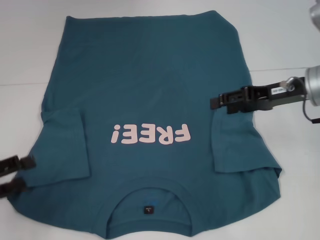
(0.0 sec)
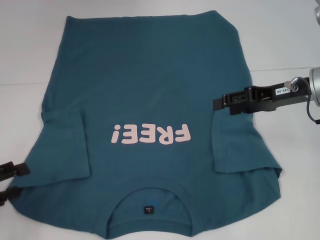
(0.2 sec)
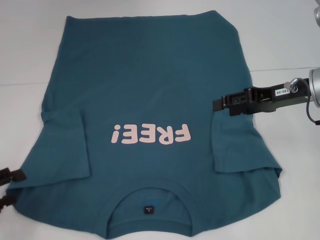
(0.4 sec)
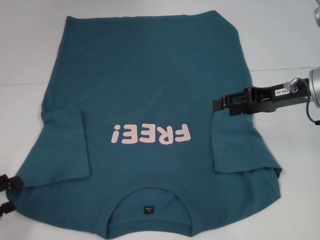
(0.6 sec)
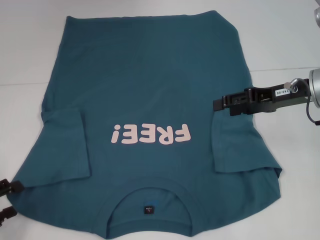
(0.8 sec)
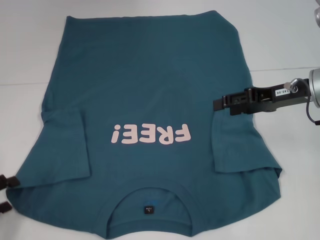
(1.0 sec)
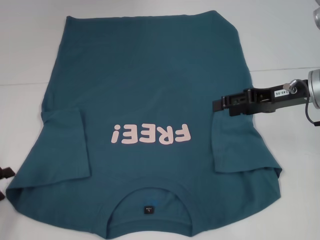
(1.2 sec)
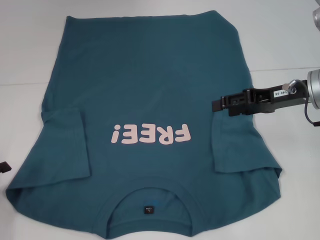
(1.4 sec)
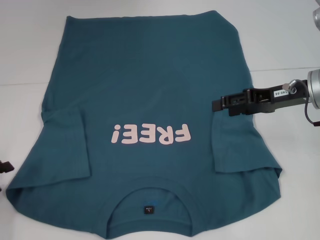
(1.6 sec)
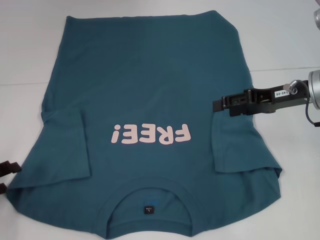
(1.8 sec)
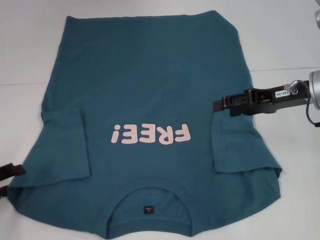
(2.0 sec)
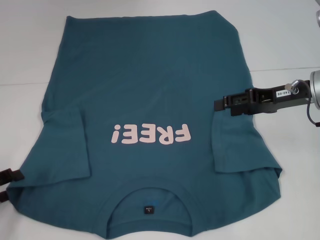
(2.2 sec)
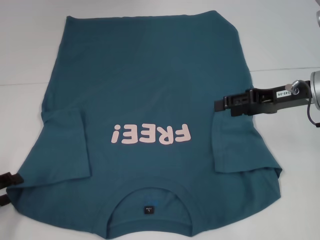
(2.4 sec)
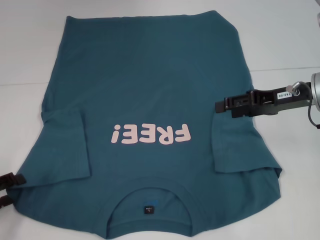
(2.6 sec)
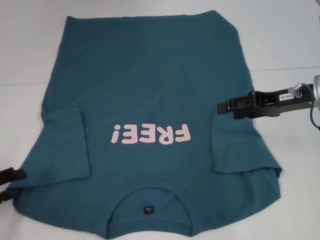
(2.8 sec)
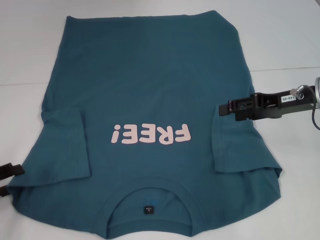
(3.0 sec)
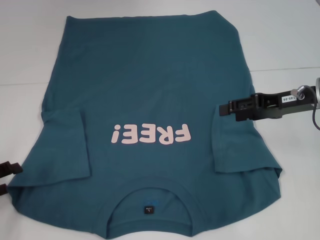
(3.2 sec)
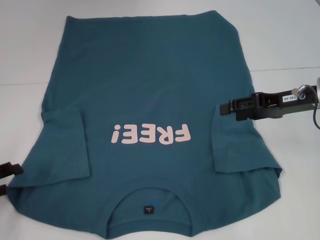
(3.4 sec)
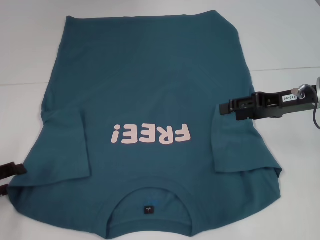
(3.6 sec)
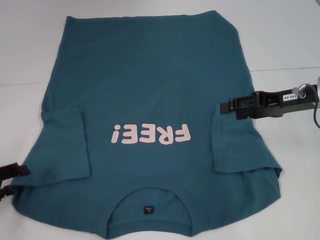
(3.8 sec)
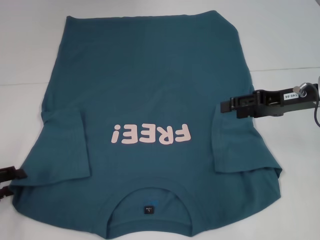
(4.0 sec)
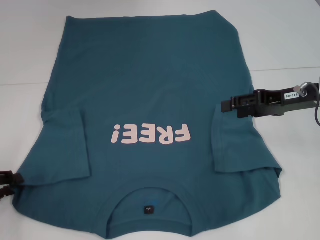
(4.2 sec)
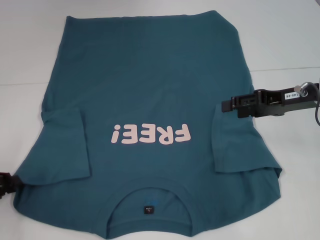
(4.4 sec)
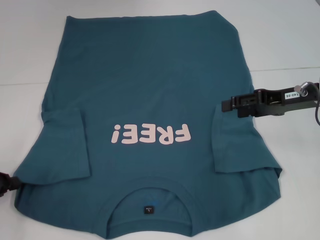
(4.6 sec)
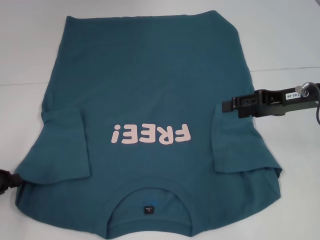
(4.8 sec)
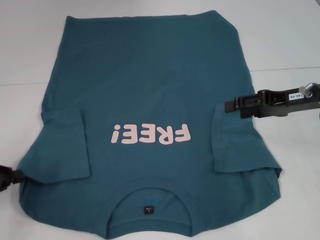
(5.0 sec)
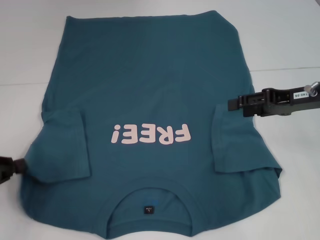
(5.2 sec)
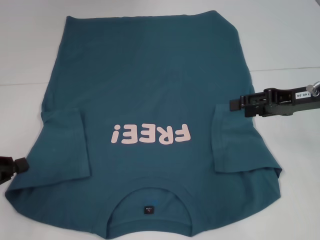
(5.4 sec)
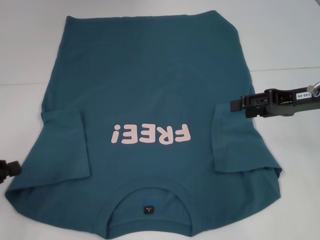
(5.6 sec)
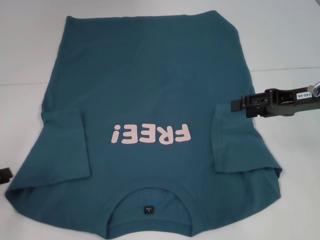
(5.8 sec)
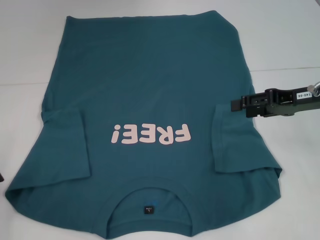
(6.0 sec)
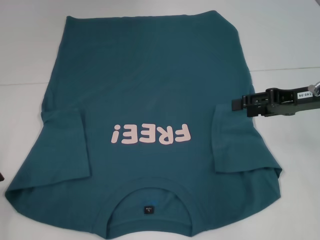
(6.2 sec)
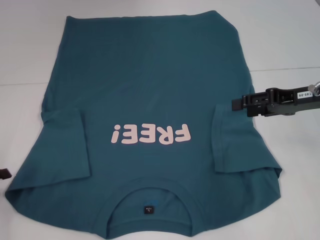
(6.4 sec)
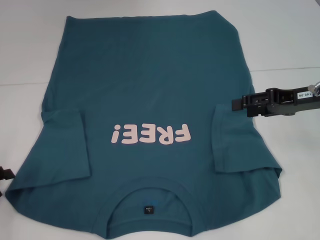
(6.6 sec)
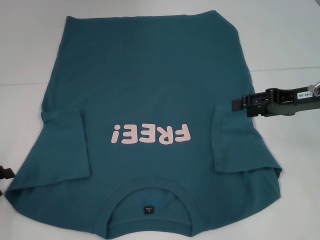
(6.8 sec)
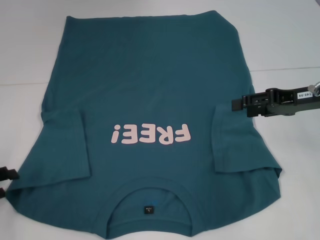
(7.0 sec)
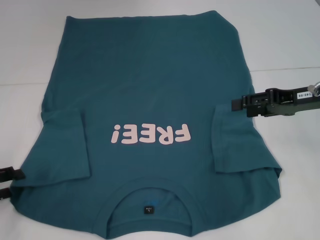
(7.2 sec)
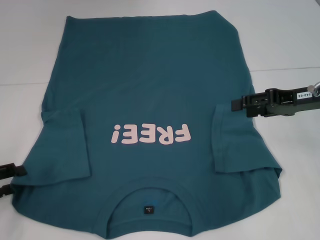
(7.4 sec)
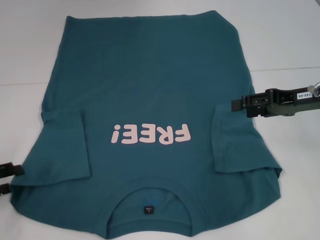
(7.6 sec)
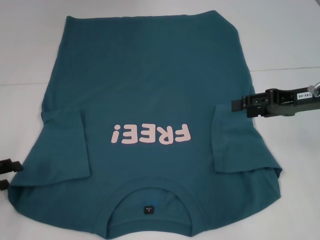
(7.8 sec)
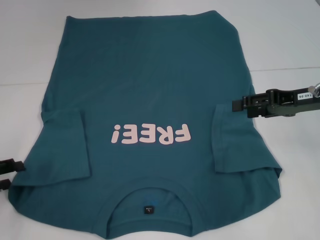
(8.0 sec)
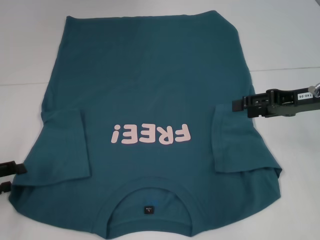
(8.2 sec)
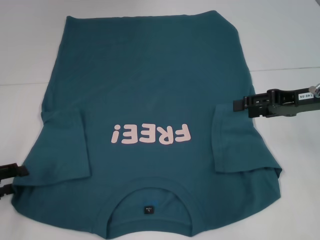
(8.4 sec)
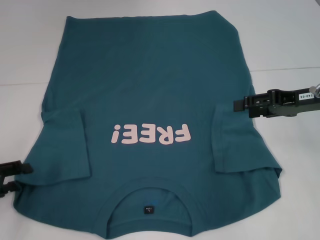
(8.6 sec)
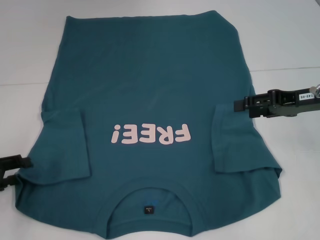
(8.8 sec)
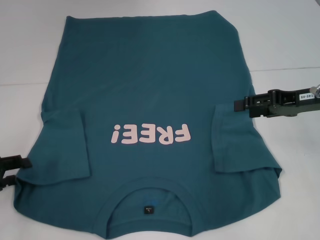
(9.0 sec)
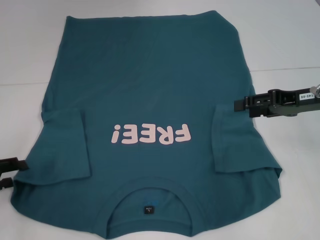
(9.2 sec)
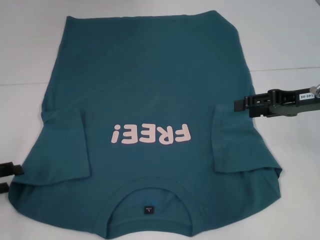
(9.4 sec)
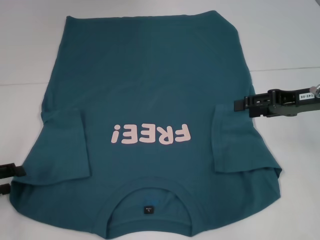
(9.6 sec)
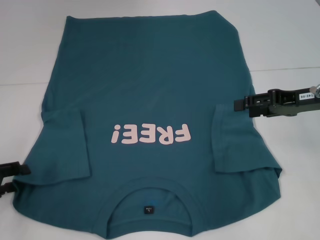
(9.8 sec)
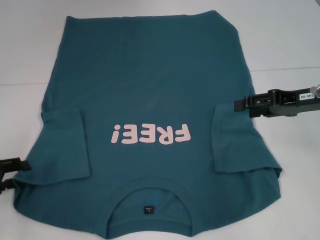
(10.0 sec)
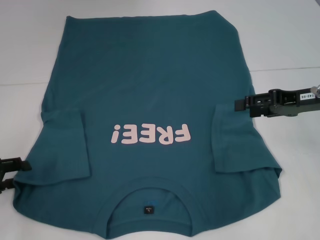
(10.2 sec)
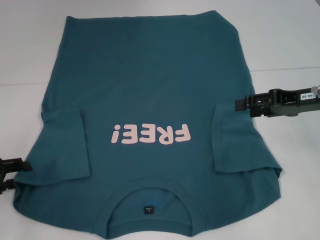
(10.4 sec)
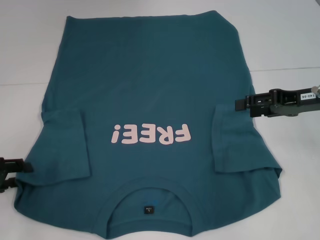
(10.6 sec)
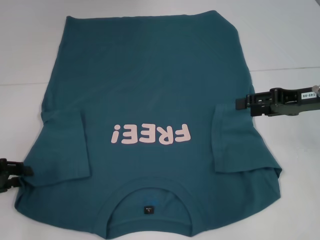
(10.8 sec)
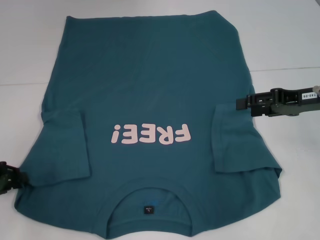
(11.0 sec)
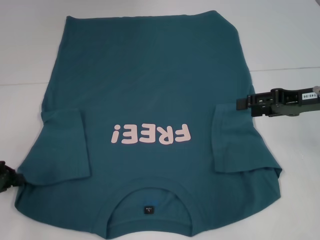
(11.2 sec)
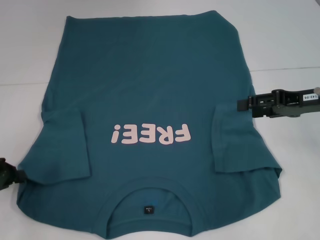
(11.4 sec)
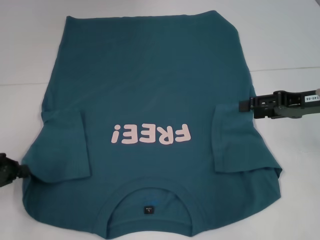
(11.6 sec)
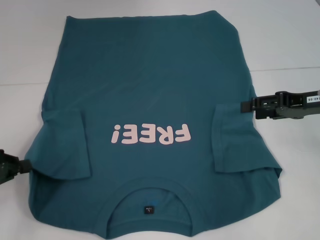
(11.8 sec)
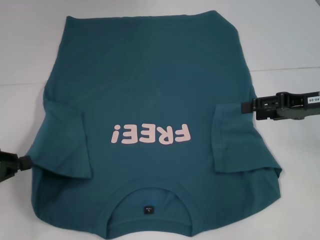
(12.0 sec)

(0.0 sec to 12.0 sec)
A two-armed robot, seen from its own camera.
Step, 0.0 sec - 11.6 sec: Grab the bottom left corner with your left hand.
0.0 sec - 3.0 sec: The grippers make only small movements.
3.0 sec - 4.4 sec: The left gripper closes up.
4.4 sec - 6.0 sec: There are only small adjustments of the grippers.
6.0 sec - 7.6 sec: The left gripper opens up.
7.6 sec - 9.0 sec: The grippers move only a little.
10.4 sec - 12.0 sec: The left gripper closes up.

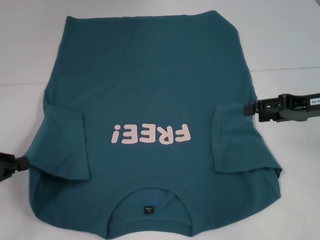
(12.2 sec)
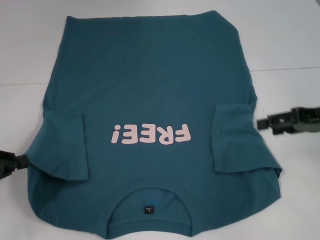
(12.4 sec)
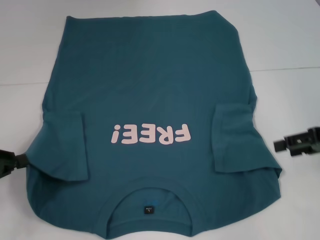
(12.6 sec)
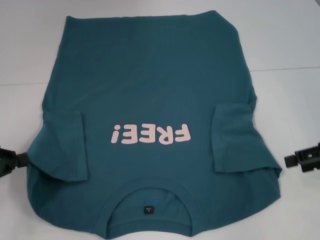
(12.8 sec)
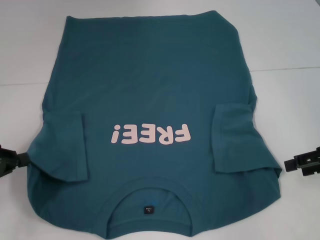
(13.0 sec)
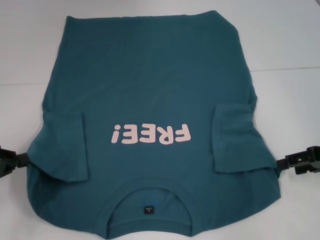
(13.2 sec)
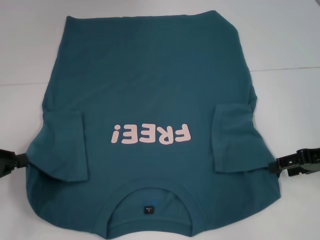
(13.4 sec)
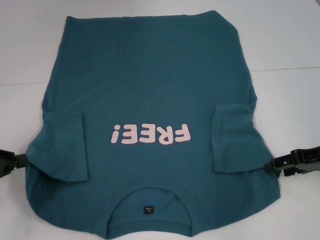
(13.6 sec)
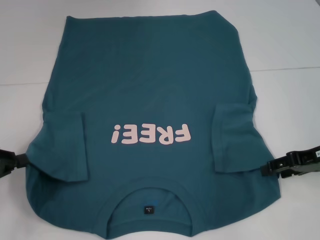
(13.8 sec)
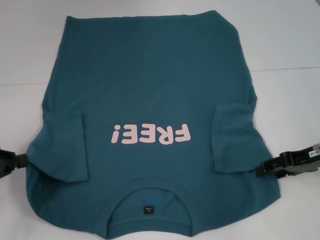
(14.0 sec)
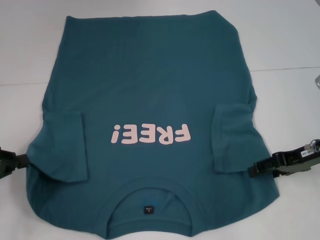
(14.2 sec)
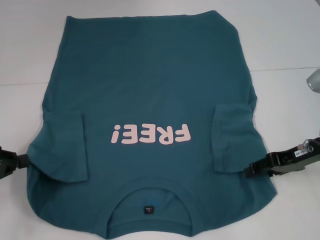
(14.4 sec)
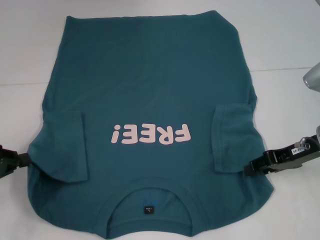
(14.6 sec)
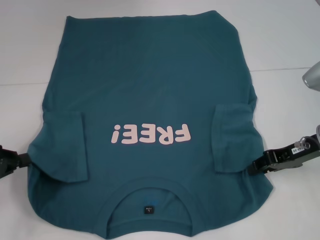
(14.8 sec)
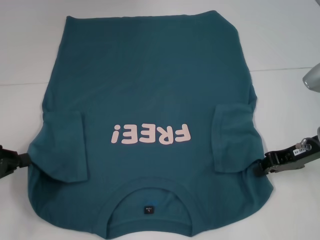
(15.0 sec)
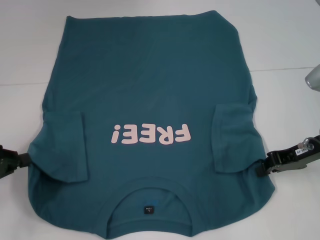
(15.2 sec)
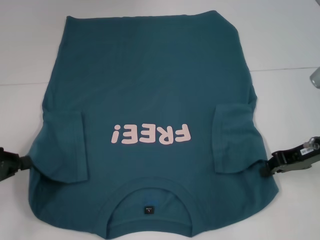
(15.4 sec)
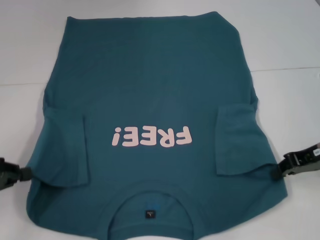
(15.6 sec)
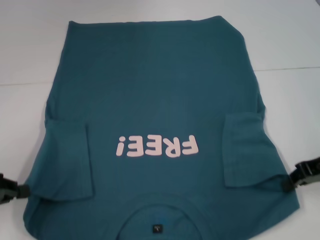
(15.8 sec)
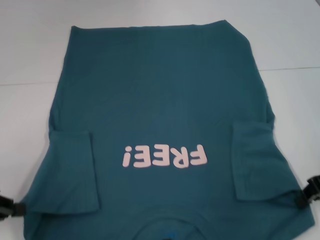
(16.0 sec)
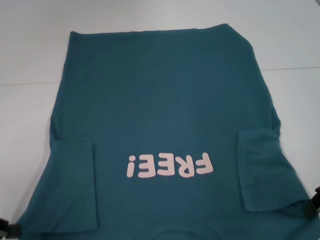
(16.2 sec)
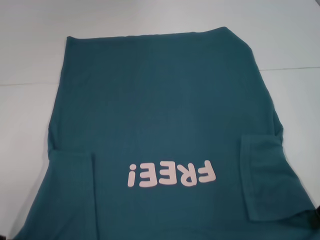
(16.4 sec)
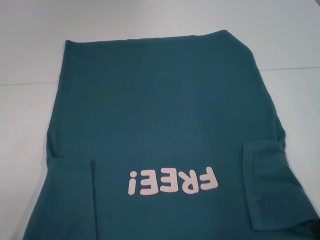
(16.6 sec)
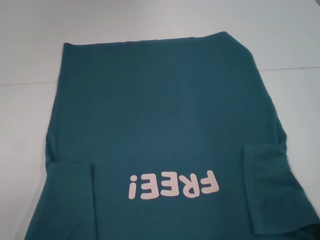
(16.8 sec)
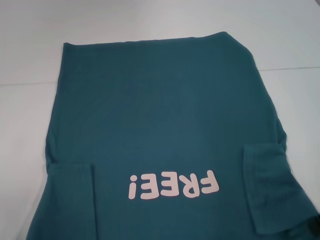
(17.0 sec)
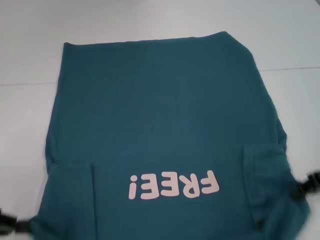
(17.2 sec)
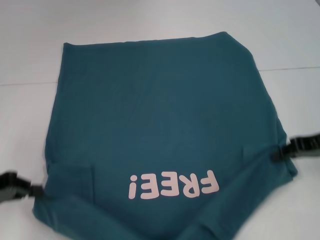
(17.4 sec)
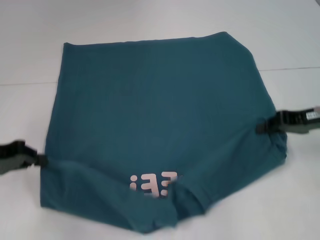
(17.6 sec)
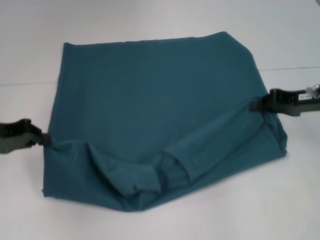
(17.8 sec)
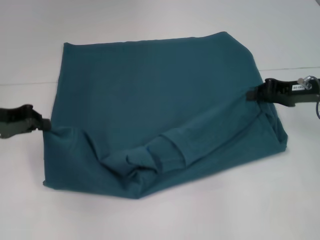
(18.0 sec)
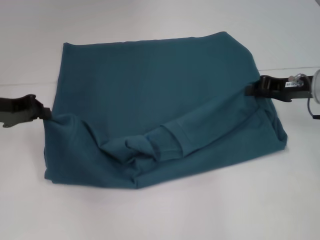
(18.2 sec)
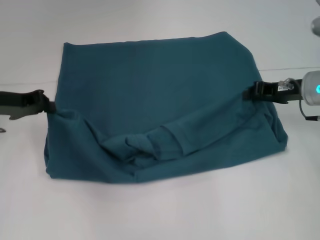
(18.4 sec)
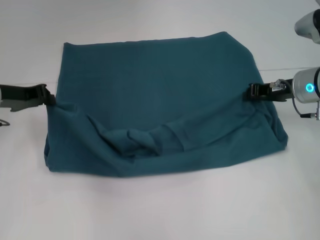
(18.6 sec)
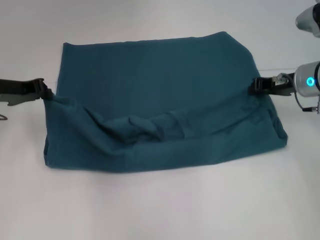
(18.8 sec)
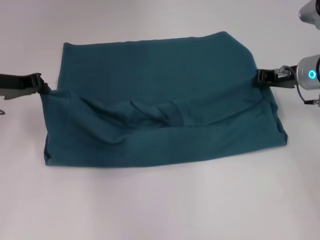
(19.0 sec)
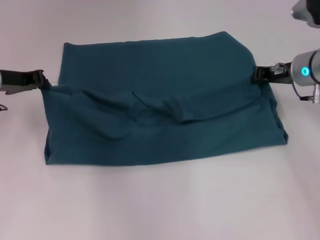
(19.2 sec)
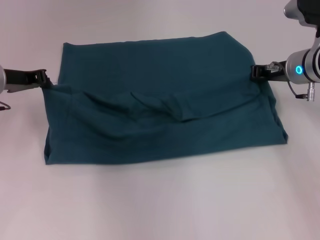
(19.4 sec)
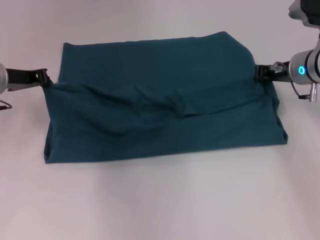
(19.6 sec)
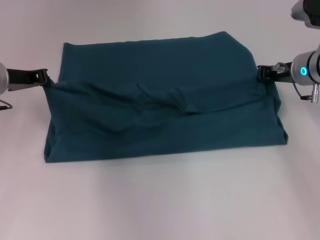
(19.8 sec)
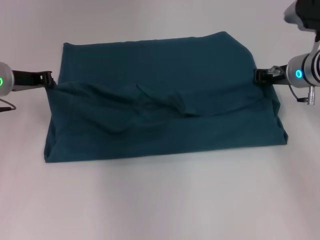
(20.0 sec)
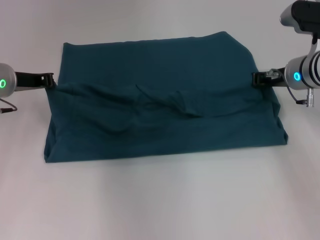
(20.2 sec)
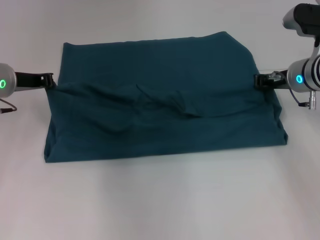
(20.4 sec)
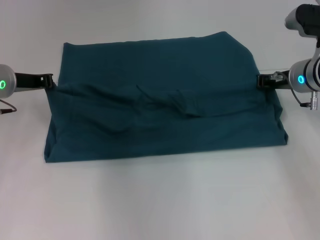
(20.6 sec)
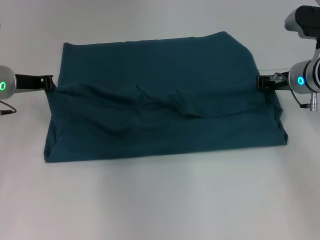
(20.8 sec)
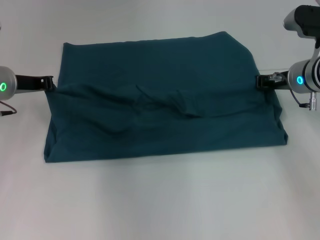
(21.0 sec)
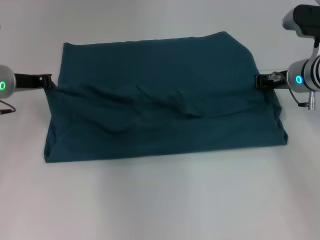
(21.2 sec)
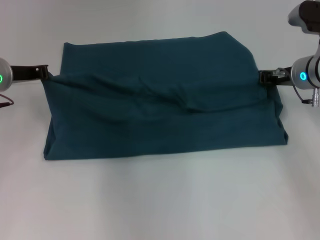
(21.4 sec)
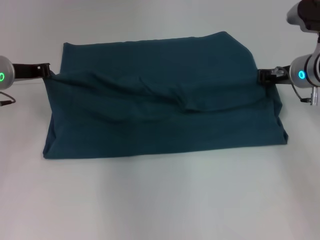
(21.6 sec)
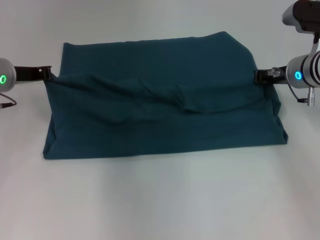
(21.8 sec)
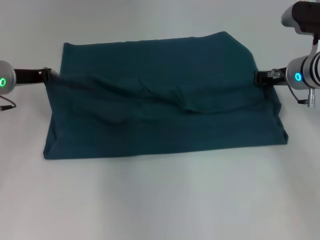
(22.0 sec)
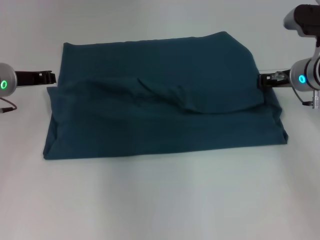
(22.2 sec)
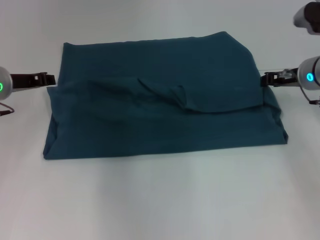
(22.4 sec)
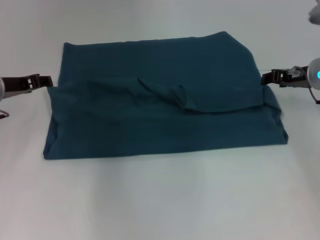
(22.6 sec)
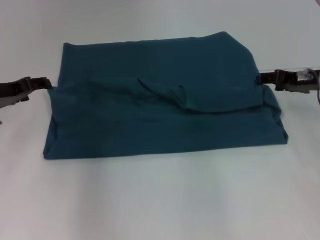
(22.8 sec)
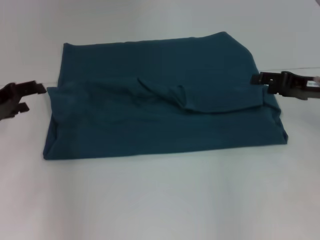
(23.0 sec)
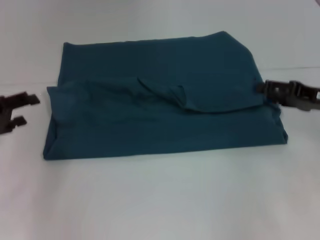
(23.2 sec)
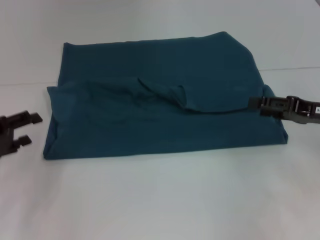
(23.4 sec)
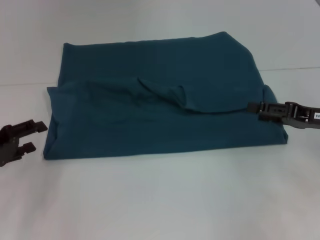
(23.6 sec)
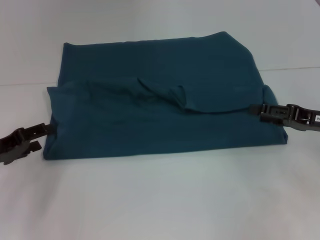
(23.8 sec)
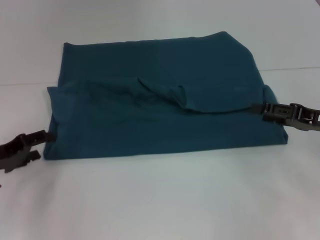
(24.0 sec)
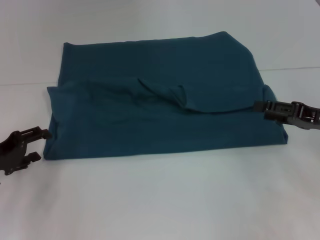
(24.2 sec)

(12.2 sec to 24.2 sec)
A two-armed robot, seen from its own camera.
Step, 12.2 sec - 15.4 sec: Grab the bottom right corner with your right hand.
Step, 15.6 sec - 22.4 sec: Fold the clothes to the left.
Step, 15.6 sec - 22.4 sec: Fold the clothes to the right.
12.2 sec - 13.8 sec: The right gripper ends up approximately 5 cm from where it was.
13.8 sec - 15.2 sec: The right gripper closes its fingers.
15.2 sec - 16.6 sec: The grippers both shift backward by some 5 cm.
16.6 sec - 18.2 sec: The right gripper heads forward and to the left, covering roughly 10 cm. Meanwhile the left gripper goes about 20 cm forward.
18.2 sec - 19.8 sec: The right gripper goes some 5 cm forward. The left gripper changes place by some 5 cm.
19.8 sec - 21.2 sec: There are only small adjustments of the grippers.
21.2 sec - 22.6 sec: The left gripper opens up; the right gripper opens its fingers.
22.6 sec - 24.2 sec: The left gripper moves backward, downward and to the left, about 15 cm, and opens; the right gripper moves backward, approximately 10 cm, and opens its fingers.
